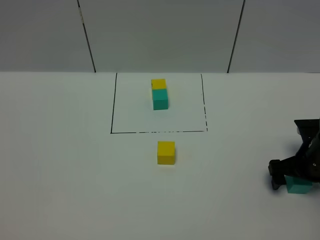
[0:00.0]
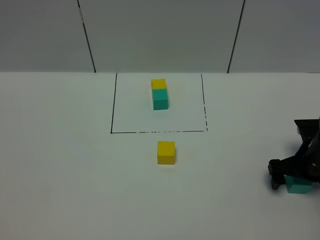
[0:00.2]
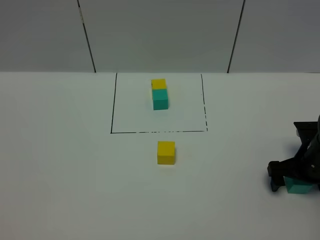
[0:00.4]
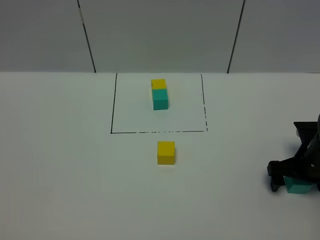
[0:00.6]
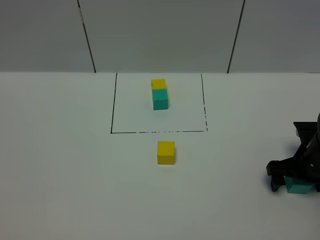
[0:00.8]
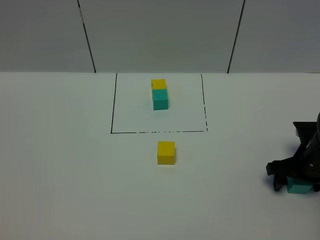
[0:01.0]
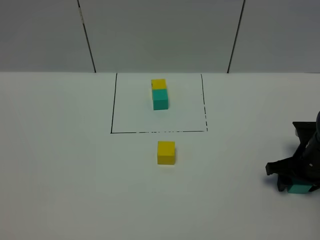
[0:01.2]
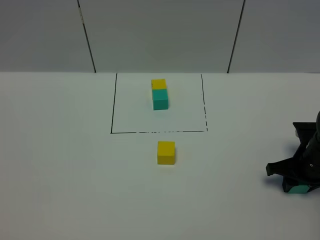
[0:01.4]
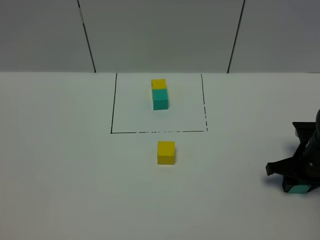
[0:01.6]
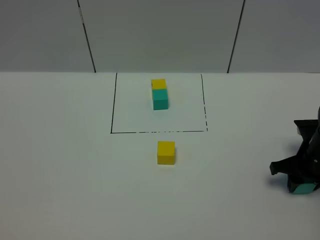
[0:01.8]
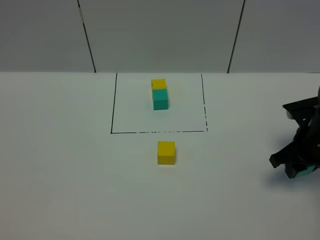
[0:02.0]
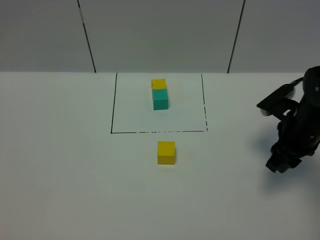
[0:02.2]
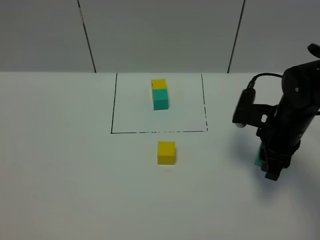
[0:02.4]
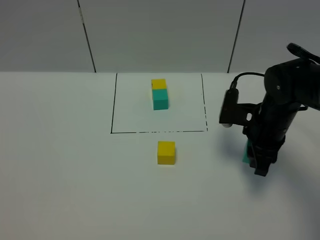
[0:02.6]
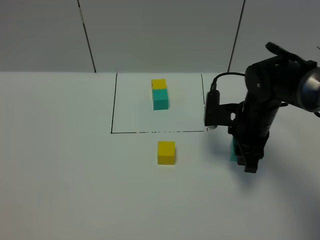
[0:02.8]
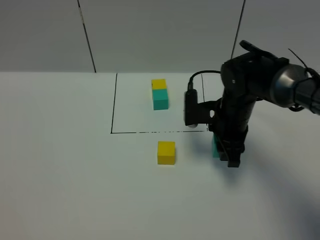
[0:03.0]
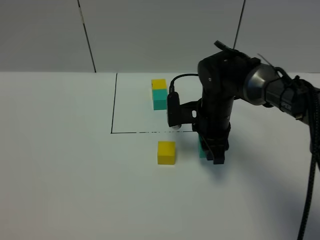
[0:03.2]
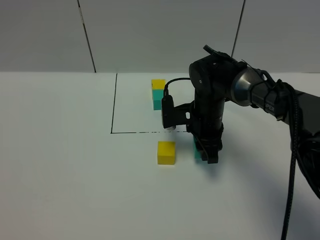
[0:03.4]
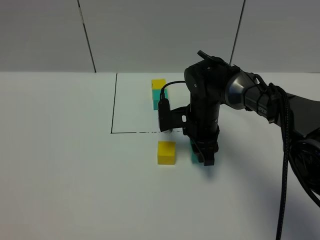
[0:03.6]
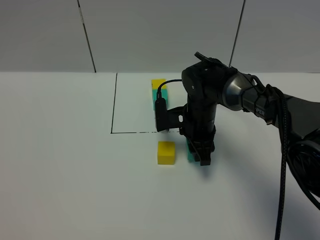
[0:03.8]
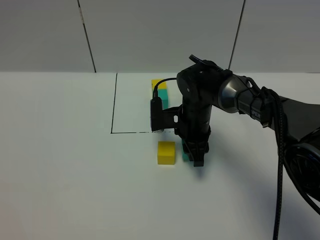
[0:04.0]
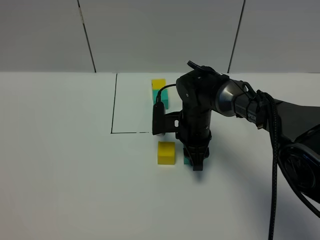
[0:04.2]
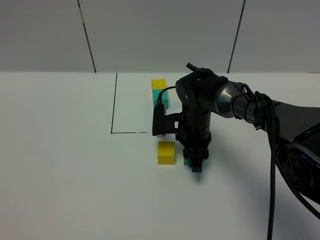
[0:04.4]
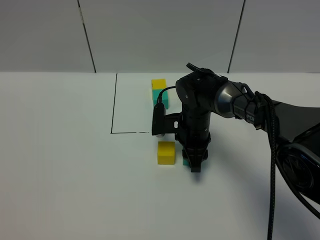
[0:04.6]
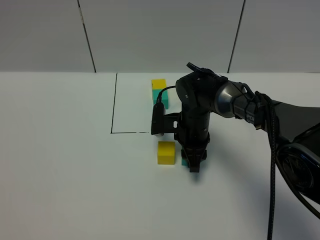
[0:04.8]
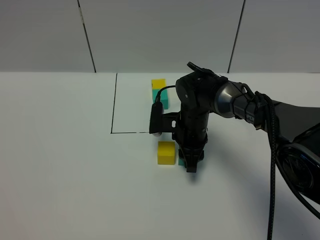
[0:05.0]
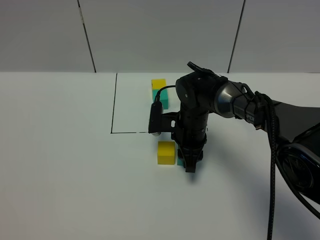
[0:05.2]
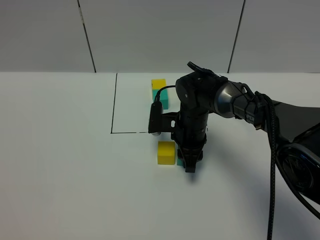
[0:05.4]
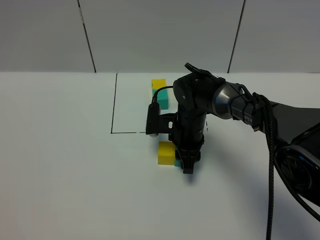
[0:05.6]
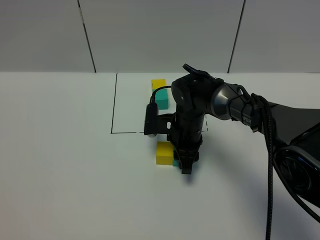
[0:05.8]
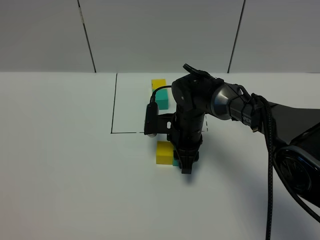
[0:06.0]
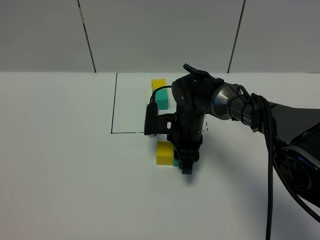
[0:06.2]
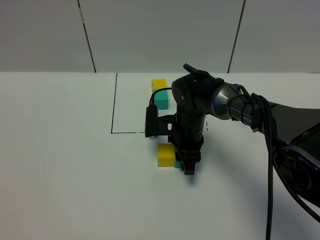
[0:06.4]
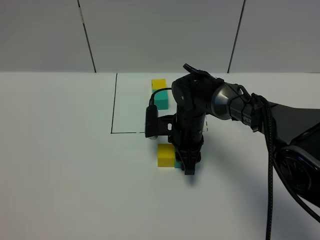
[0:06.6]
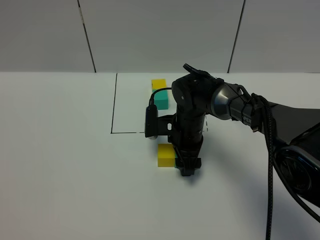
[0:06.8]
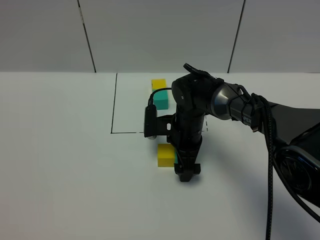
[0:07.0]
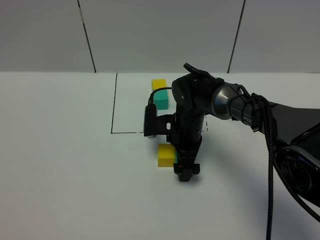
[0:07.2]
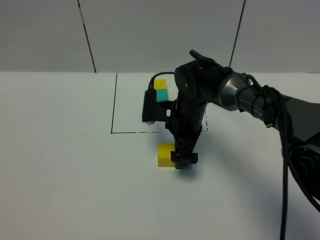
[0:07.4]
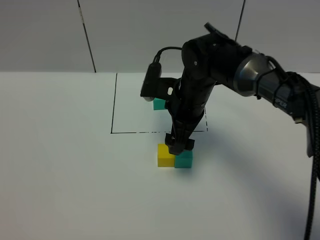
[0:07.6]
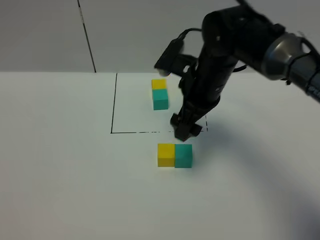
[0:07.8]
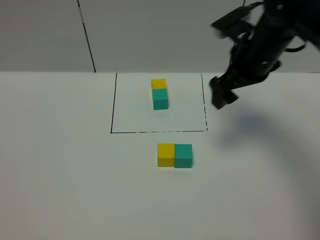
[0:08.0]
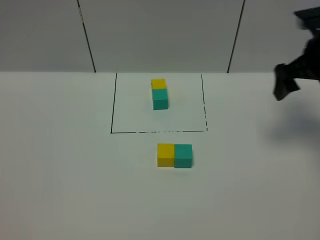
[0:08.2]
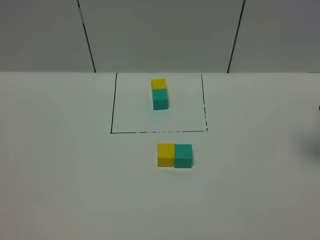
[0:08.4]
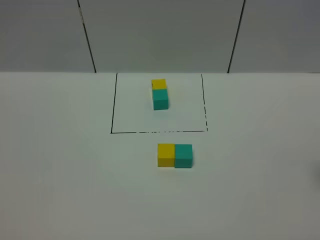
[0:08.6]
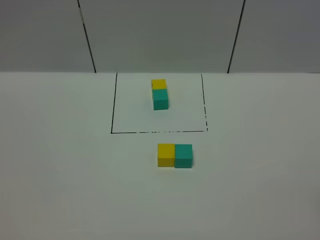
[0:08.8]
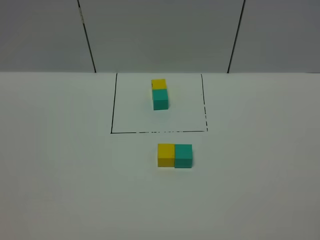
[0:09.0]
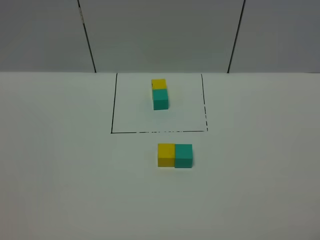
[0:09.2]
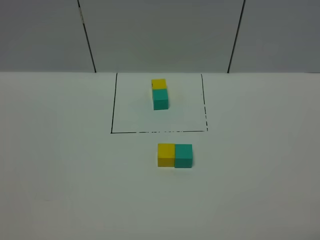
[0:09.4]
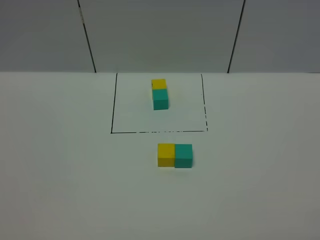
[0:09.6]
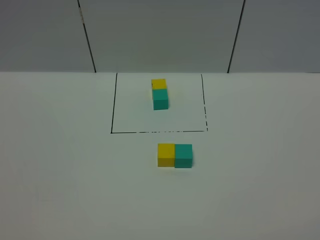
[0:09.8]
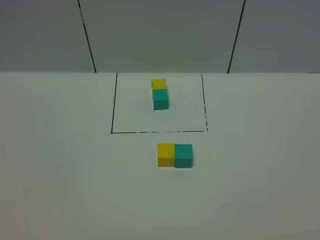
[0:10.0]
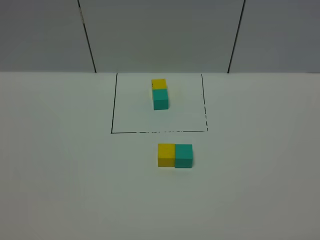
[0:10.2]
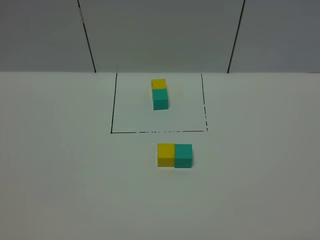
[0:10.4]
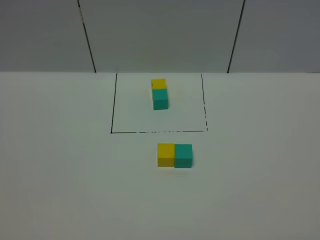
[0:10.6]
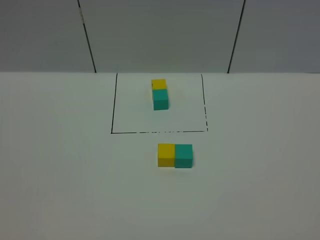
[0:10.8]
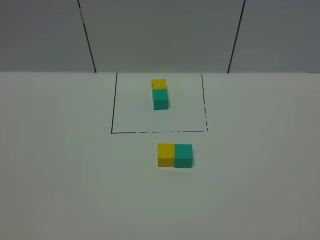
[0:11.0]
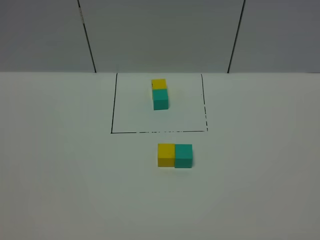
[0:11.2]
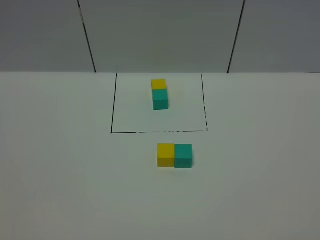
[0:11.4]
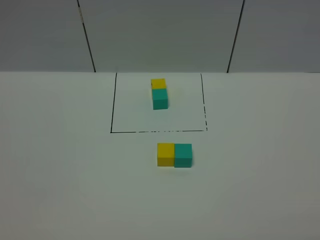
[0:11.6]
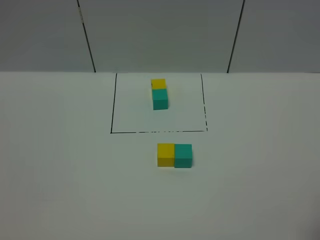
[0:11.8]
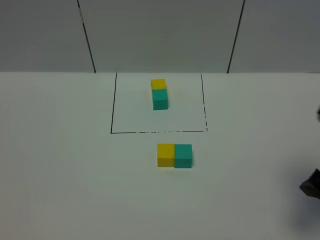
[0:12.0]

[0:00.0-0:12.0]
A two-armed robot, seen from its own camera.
Task of the whole recording: According to the building block template in front, assemble the scattered blocks together.
Step, 0:00.0 to 0:06.8: Put the green cube on the right of the yellow cube.
0:00.0 to 0:01.6: The right gripper closes.
0:01.6 to 0:03.0: The right gripper shifts some 15 cm to the left.
0:03.0 to 0:04.4: The right gripper goes approximately 10 cm downward and to the left.
0:04.4 to 0:06.0: The grippers move only a little.
0:06.0 to 0:07.6: The right gripper moves upward, roughly 10 cm, and opens up.
0:07.6 to 0:09.0: The right gripper travels to the right and backward by approximately 40 cm.
0:10.4 to 0:12.0: The right gripper moves forward, about 20 cm.

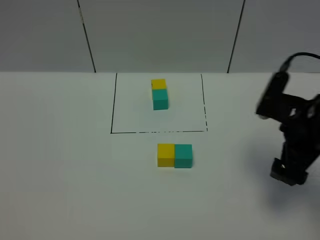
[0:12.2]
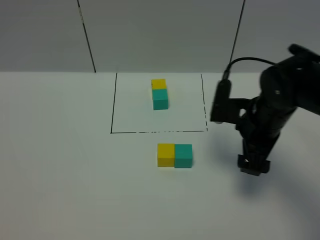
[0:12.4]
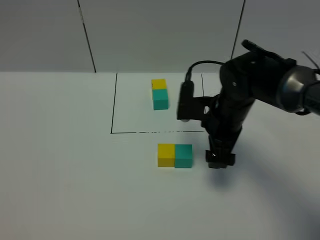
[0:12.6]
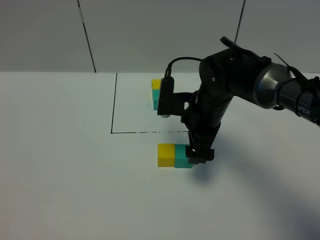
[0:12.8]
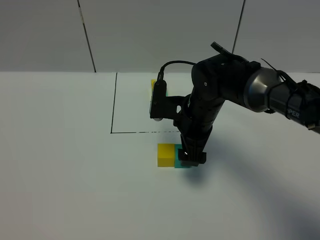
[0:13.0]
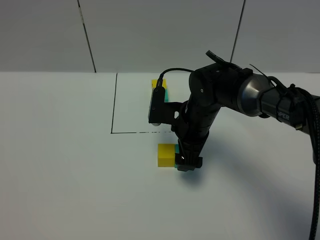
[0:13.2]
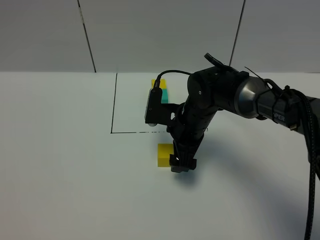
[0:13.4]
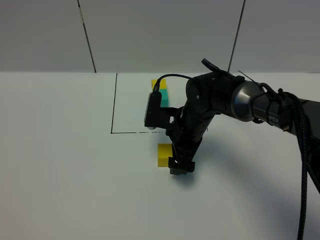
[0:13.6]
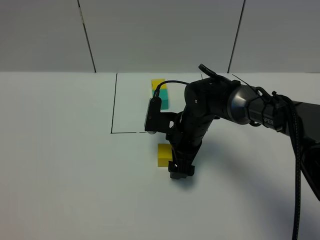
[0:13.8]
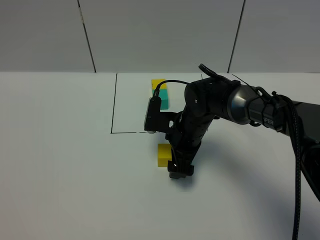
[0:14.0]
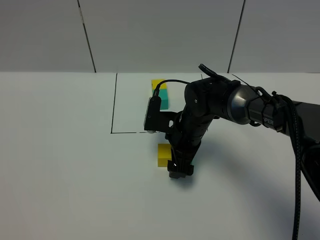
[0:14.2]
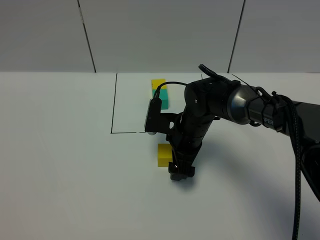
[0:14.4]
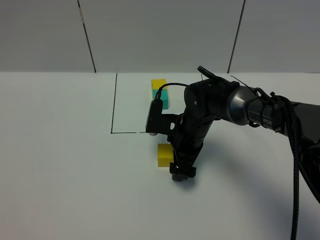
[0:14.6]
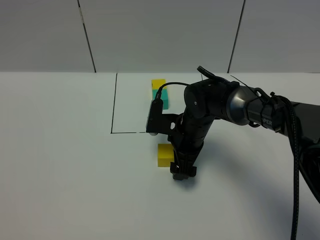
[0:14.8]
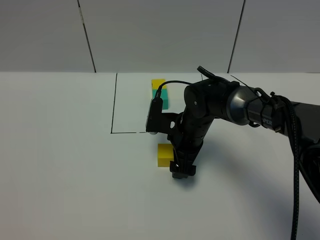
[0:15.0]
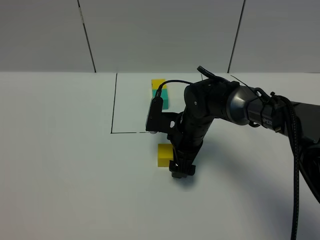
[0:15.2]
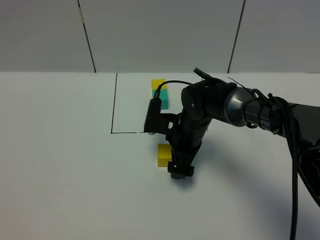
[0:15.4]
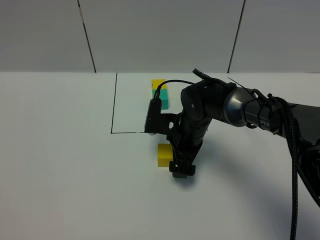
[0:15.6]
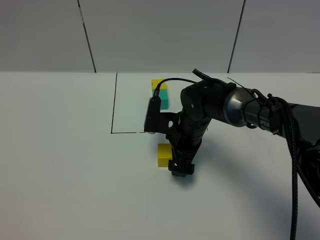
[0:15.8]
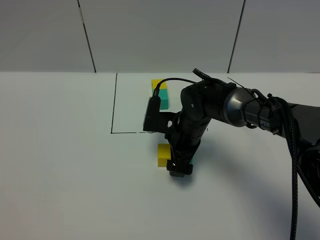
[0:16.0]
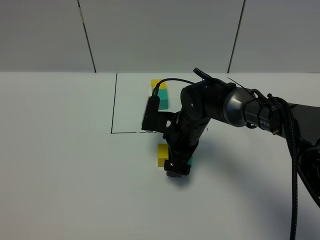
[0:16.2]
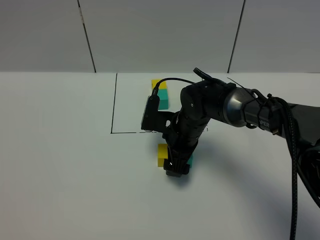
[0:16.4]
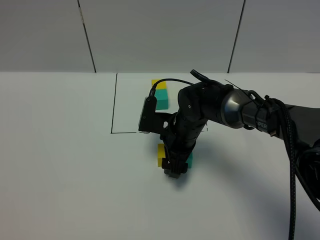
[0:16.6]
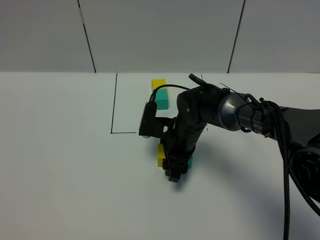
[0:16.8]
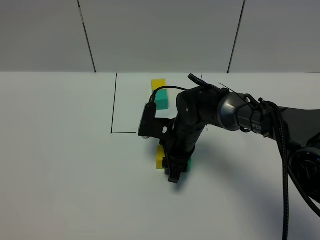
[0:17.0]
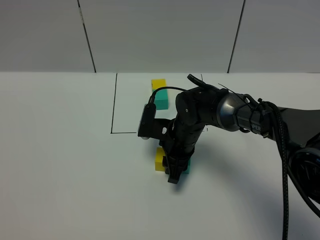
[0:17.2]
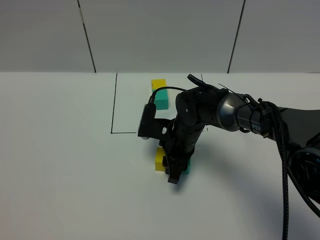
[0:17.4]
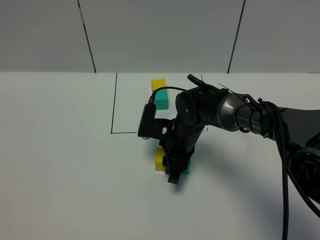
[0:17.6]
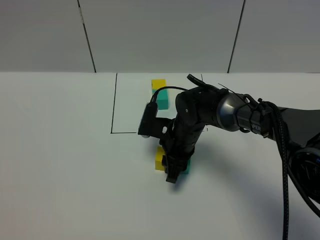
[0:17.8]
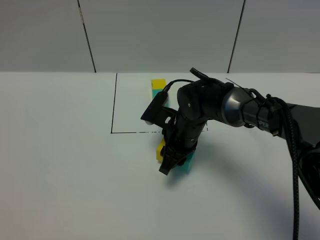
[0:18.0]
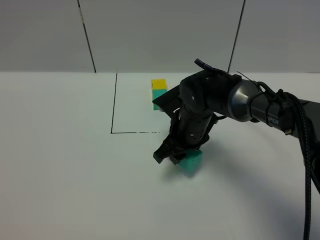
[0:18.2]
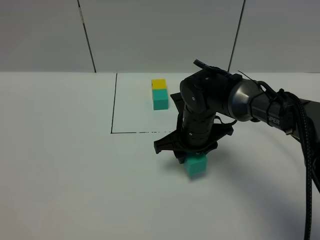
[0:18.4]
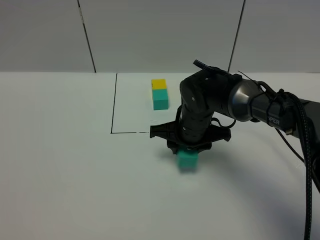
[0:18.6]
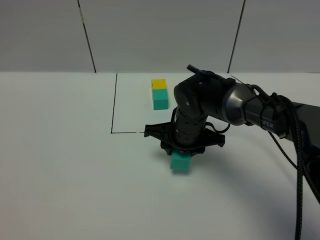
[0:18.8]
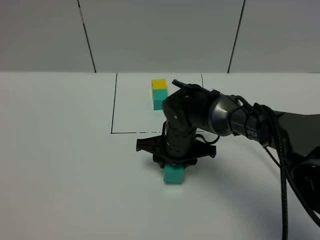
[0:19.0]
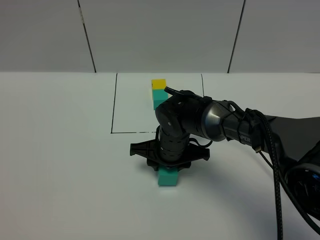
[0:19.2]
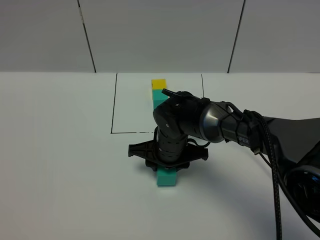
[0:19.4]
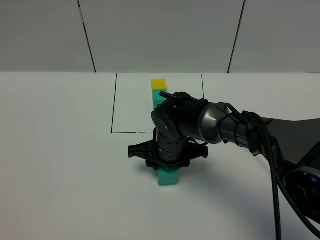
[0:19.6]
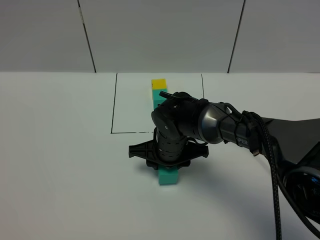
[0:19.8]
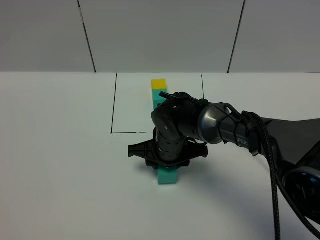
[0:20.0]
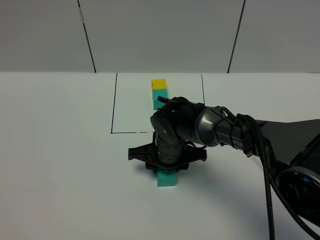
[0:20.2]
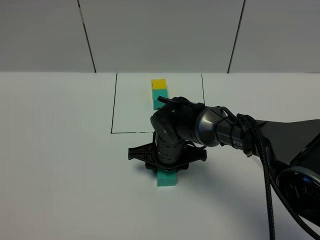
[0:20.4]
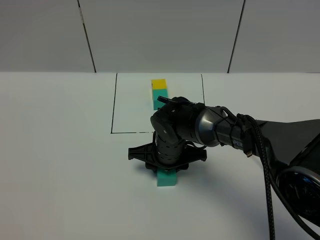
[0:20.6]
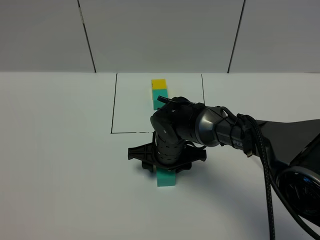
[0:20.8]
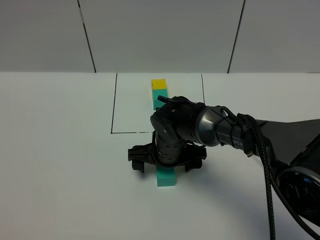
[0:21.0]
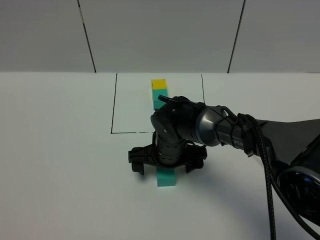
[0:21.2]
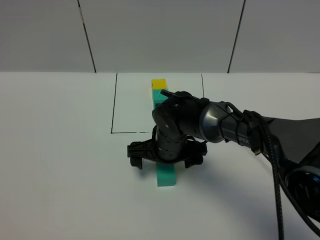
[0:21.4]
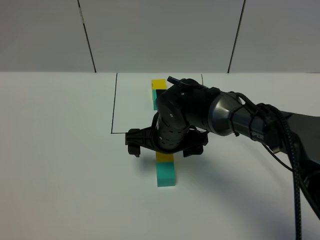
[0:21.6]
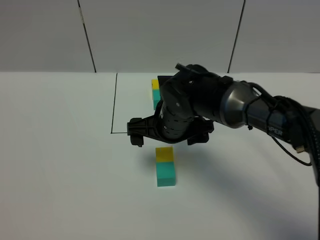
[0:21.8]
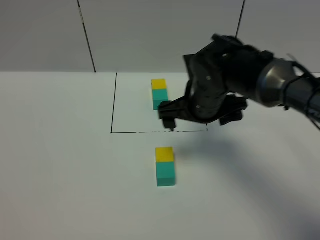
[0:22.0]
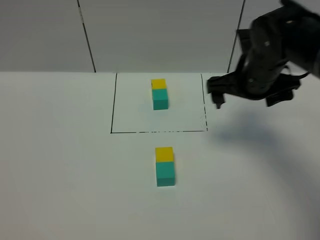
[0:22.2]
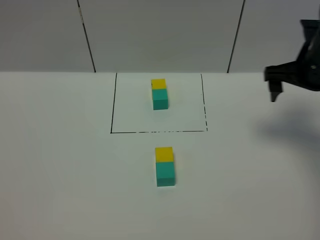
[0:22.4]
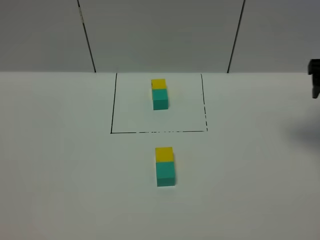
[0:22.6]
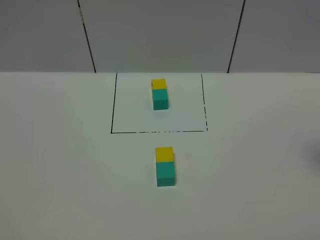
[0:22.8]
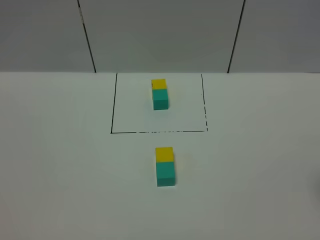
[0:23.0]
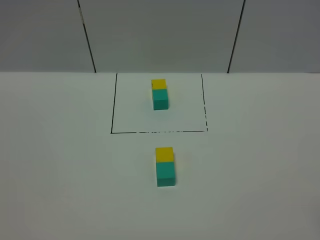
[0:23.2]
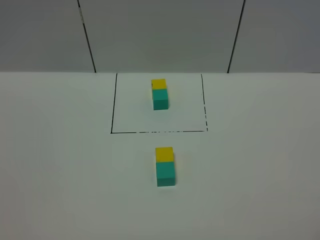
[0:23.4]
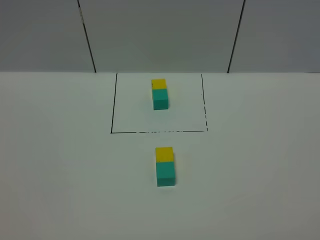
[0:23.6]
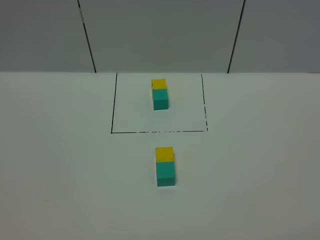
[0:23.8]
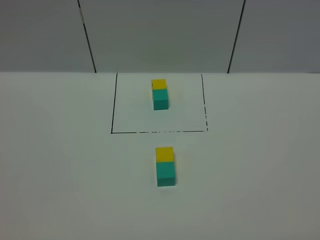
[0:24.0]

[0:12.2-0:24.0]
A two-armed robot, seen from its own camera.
Task of the whole recording: According to the building block template in front, assemble the scattered blocks together.
Step, 0:12.2 to 0:20.8: Adjust the pose of the building blocks.
0:12.2 to 0:13.6: The right gripper travels to the left, downward and forward by about 20 cm.
0:13.6 to 0:15.2: The two grippers keep their place.
0:15.2 to 0:16.6: Both grippers stay about where they are.
0:16.6 to 0:18.2: The right gripper closes up.
0:18.2 to 0:19.6: The right gripper shifts by roughly 5 cm.
0:19.6 to 0:21.0: The right gripper opens.
0:21.0 to 0:22.6: The right gripper travels to the right and upward by some 40 cm.
0:22.6 to 0:24.0: The right gripper shifts roughly 35 cm backward.
